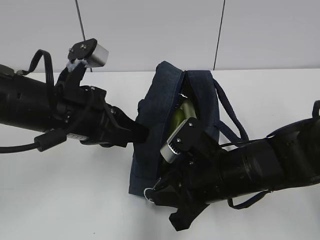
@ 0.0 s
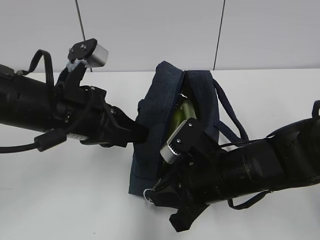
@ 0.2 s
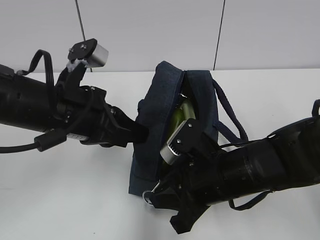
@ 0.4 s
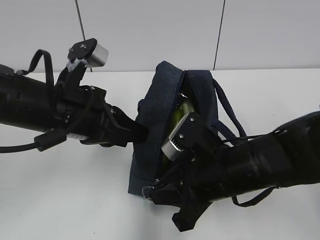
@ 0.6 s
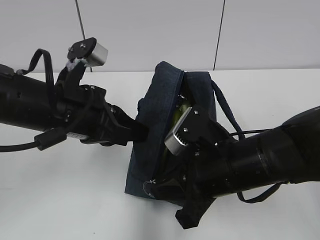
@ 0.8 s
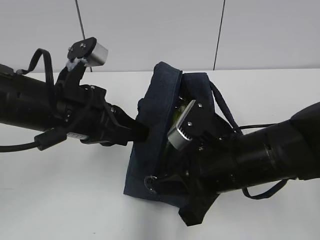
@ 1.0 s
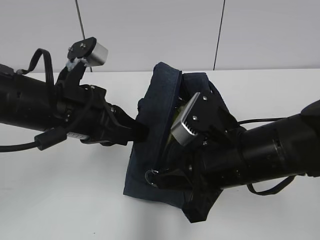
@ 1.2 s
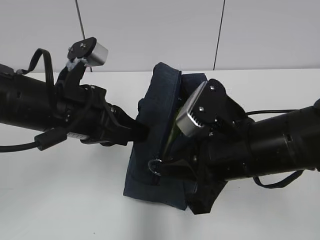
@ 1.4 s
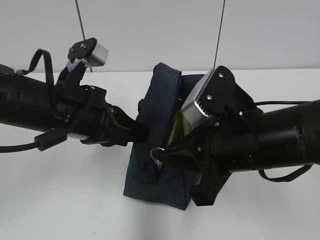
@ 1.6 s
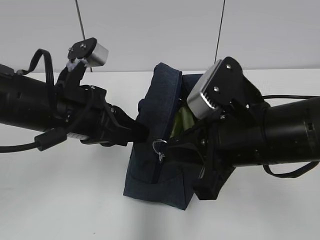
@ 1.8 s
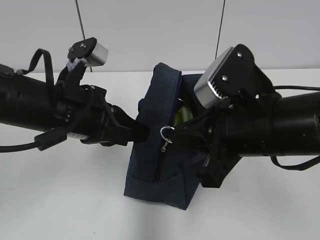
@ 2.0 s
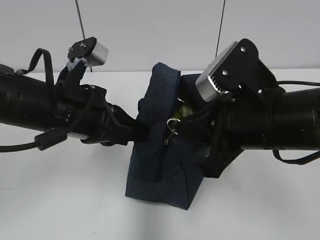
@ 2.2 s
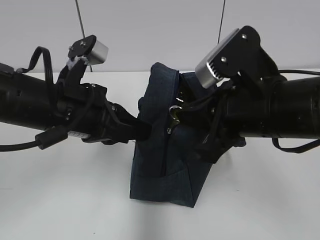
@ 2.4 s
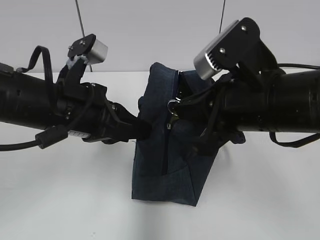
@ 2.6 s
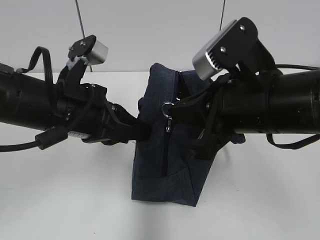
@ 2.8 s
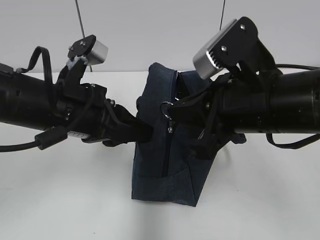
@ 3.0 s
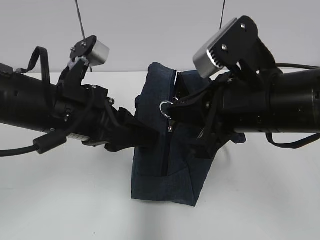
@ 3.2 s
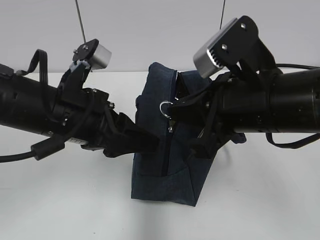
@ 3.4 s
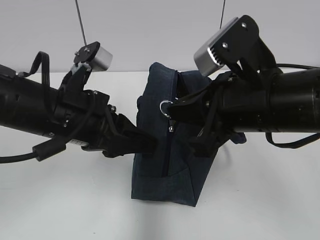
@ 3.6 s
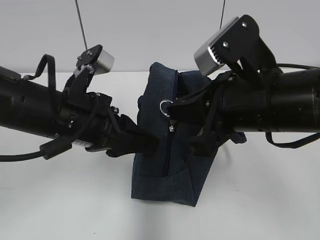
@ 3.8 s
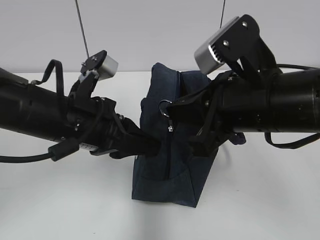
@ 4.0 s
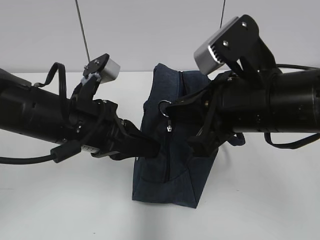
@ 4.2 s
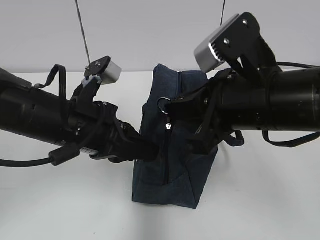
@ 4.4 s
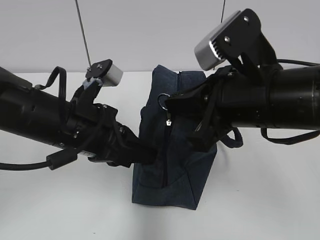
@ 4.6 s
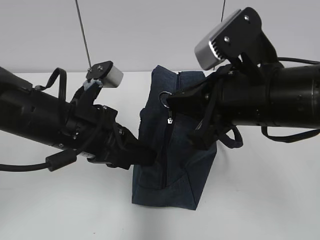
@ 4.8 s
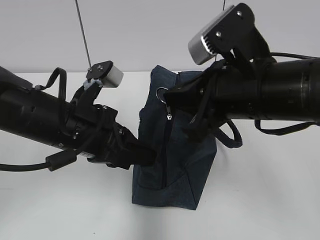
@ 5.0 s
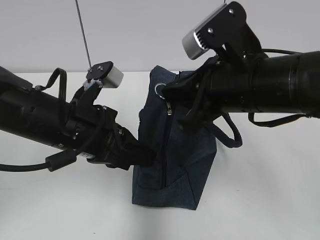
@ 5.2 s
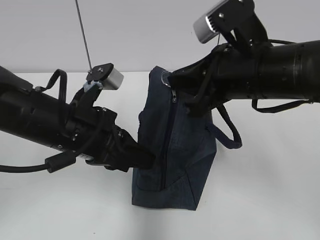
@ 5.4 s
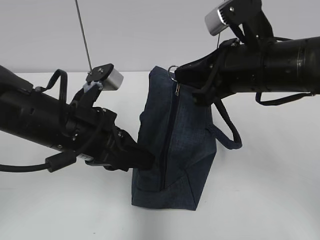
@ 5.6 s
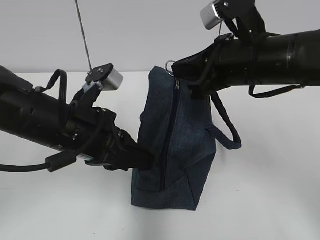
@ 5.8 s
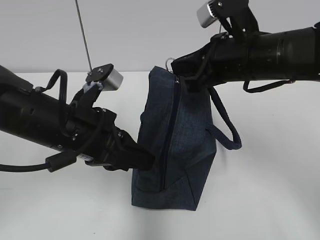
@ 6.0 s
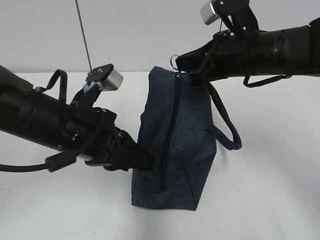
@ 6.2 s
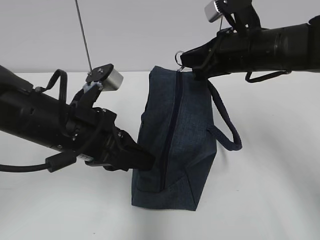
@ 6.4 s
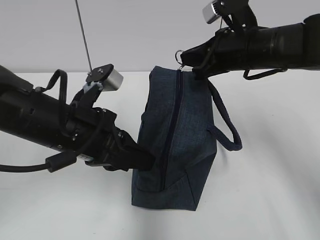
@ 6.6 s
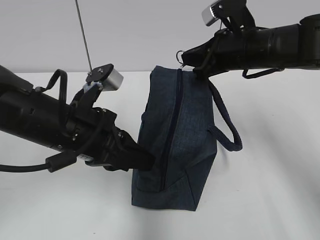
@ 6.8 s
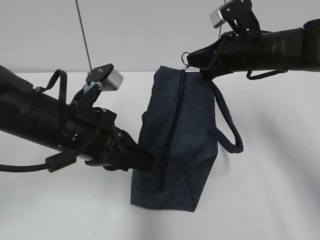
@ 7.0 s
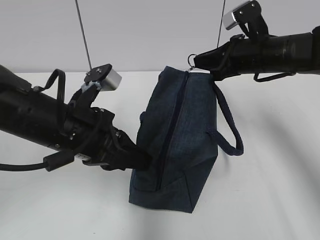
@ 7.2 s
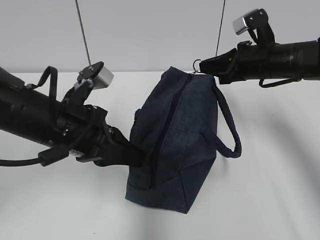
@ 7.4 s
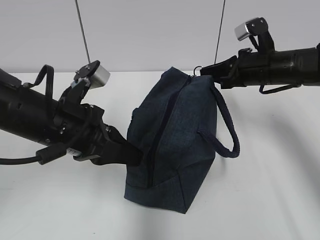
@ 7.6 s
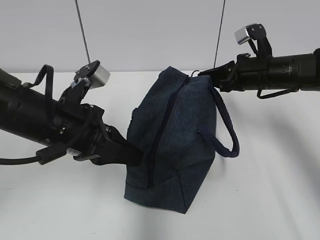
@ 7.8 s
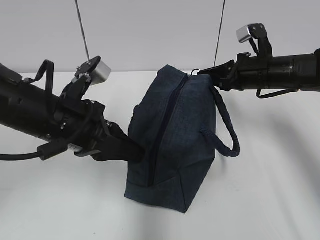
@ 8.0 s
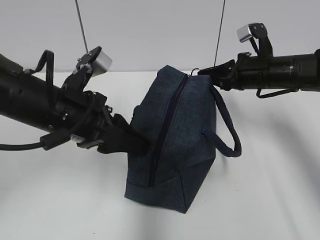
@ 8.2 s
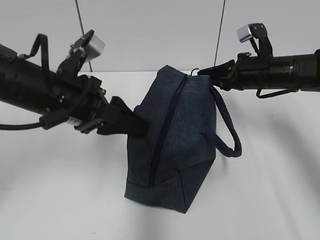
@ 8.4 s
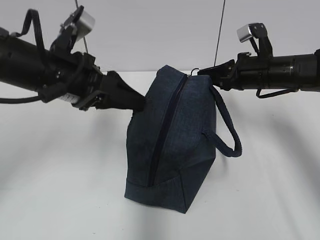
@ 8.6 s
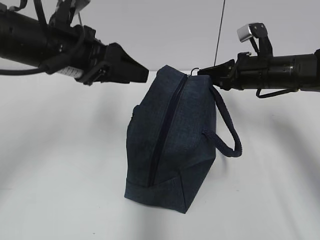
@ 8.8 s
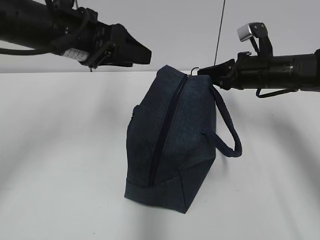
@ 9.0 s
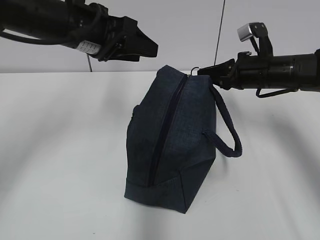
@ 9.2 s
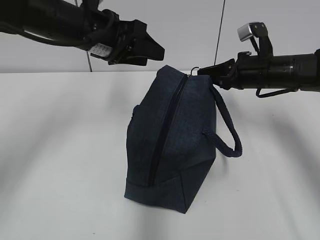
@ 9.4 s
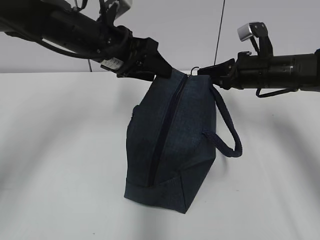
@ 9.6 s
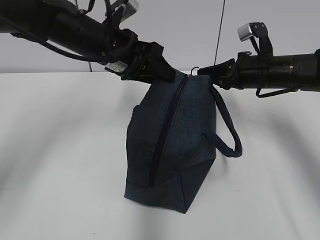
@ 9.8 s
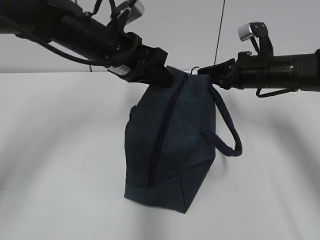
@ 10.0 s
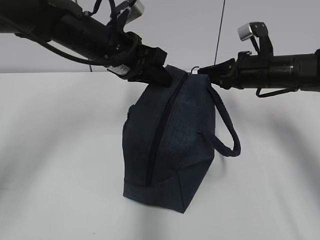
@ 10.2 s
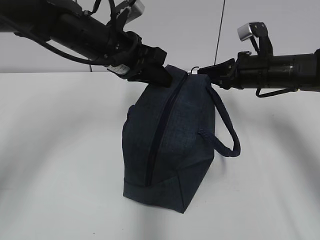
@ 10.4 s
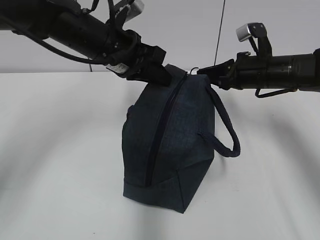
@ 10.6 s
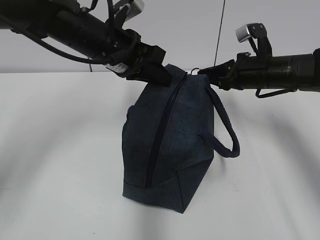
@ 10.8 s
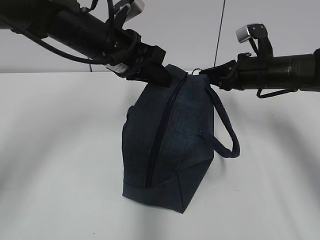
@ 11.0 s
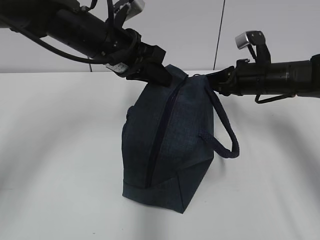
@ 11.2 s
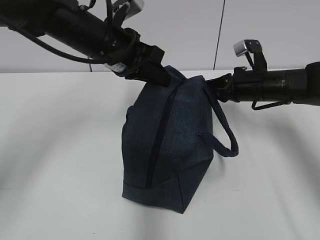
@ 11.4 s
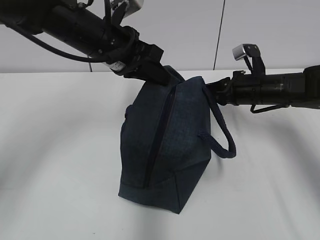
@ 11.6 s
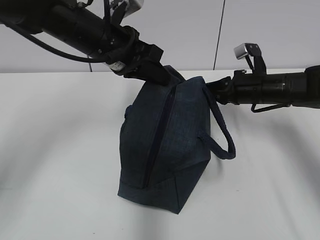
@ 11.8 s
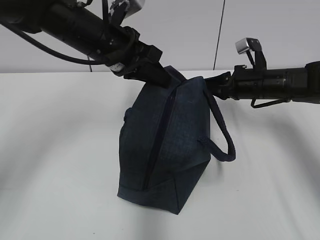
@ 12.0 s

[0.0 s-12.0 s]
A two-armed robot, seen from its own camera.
0.0 to 1.6 s: The right gripper travels upward by approximately 10 cm.
3.0 to 4.4 s: The grippers move only a little.
4.4 to 6.0 s: The right gripper shifts roughly 10 cm forward.
6.0 to 7.6 s: The right gripper moves forward, to the right and downward, about 15 cm.
7.6 to 9.0 s: The left gripper travels upward and forward by roughly 10 cm, and opens up.
9.0 to 10.4 s: The left gripper travels forward and to the right by roughly 5 cm, and closes up.
10.4 to 12.0 s: There are only small adjustments of the grippers.

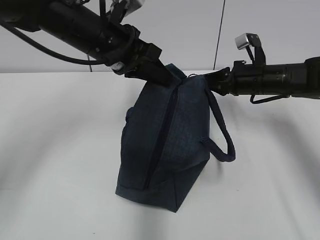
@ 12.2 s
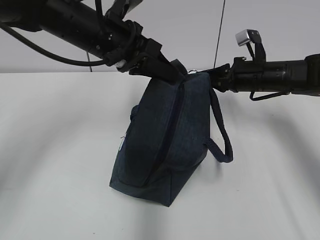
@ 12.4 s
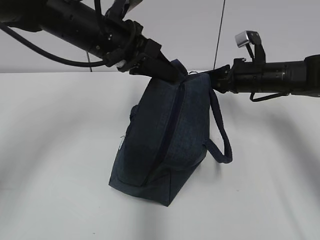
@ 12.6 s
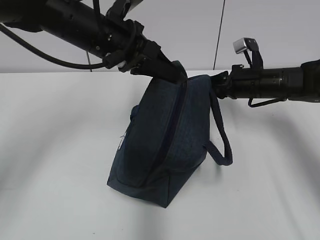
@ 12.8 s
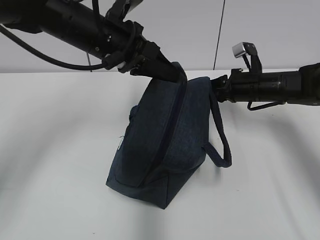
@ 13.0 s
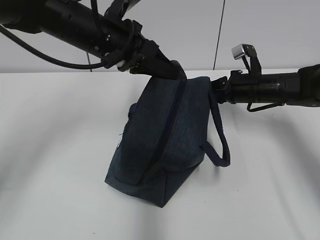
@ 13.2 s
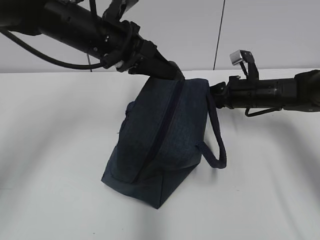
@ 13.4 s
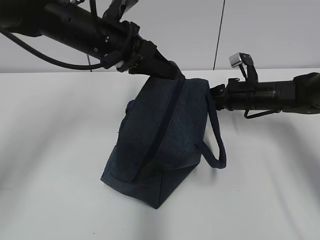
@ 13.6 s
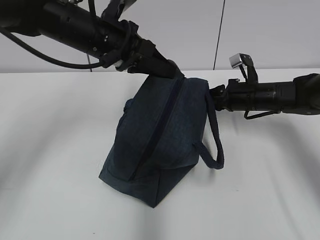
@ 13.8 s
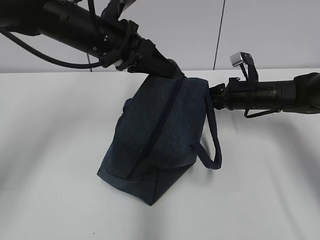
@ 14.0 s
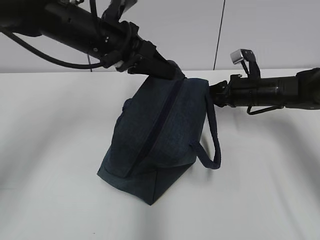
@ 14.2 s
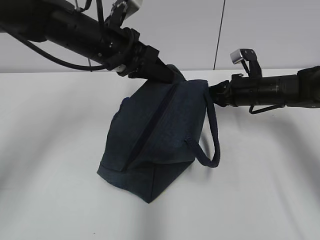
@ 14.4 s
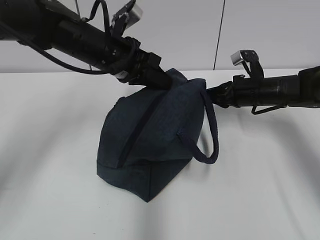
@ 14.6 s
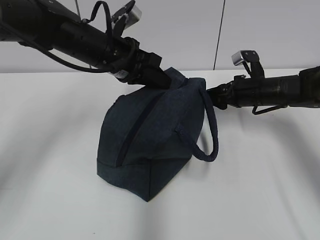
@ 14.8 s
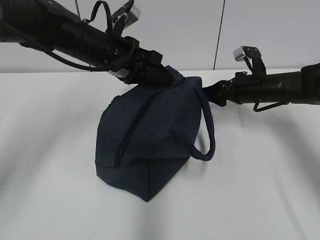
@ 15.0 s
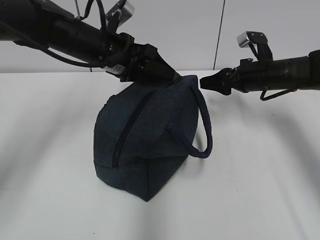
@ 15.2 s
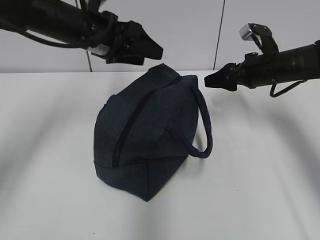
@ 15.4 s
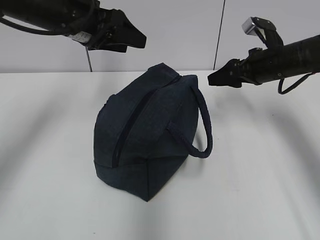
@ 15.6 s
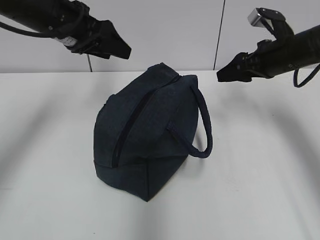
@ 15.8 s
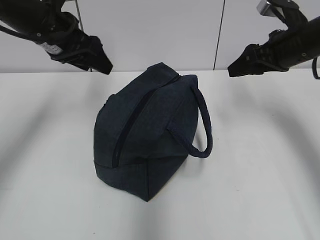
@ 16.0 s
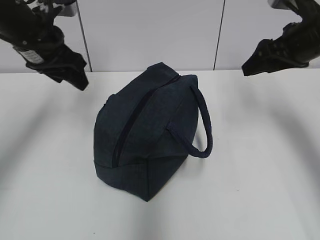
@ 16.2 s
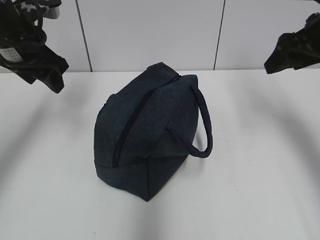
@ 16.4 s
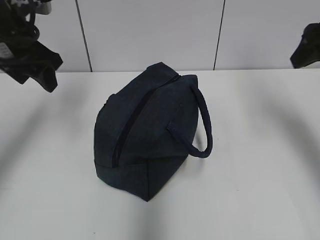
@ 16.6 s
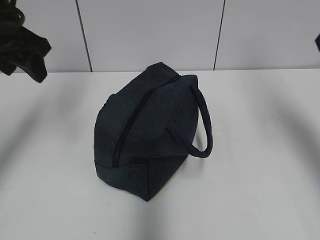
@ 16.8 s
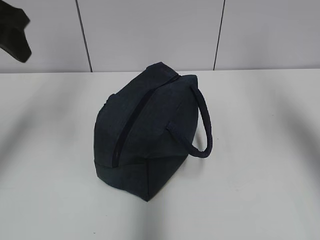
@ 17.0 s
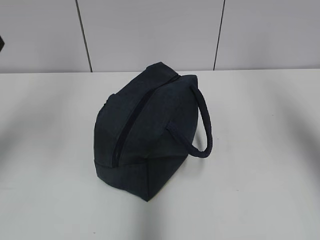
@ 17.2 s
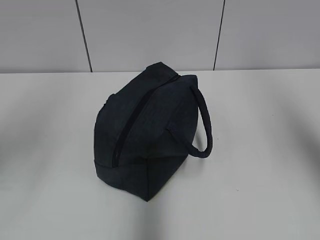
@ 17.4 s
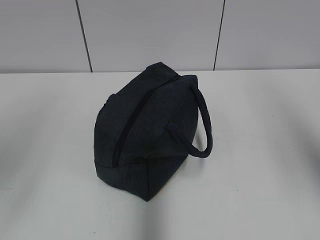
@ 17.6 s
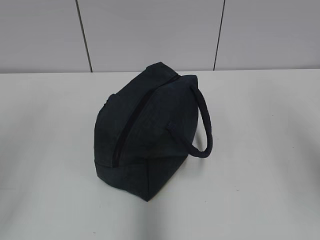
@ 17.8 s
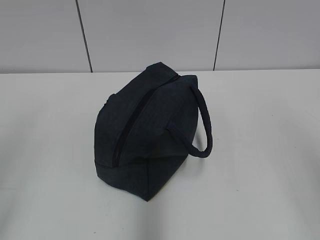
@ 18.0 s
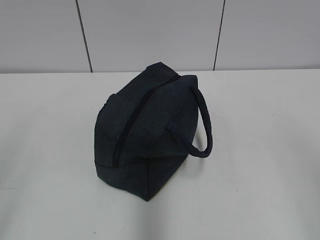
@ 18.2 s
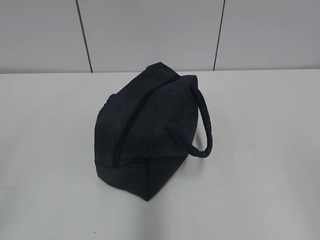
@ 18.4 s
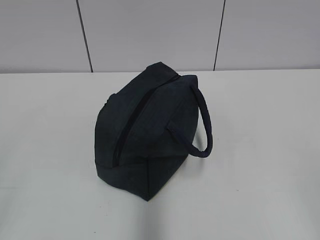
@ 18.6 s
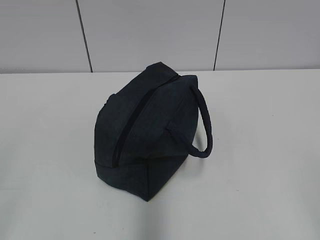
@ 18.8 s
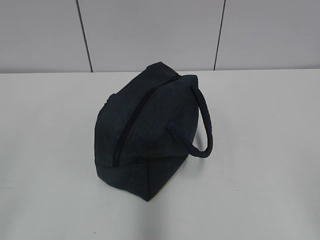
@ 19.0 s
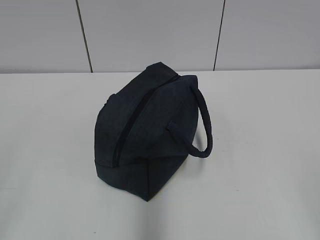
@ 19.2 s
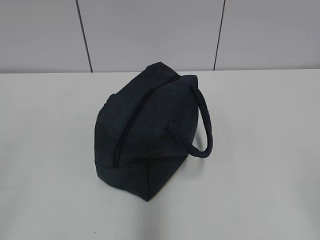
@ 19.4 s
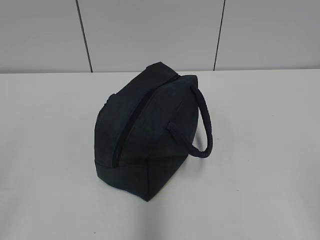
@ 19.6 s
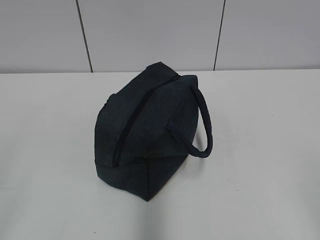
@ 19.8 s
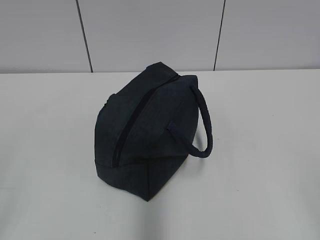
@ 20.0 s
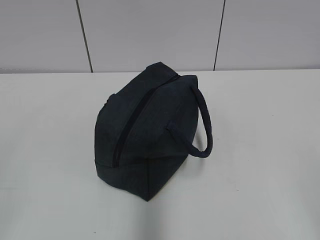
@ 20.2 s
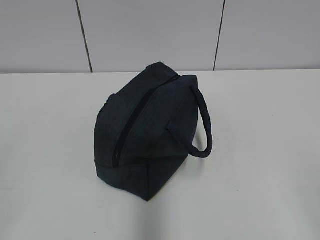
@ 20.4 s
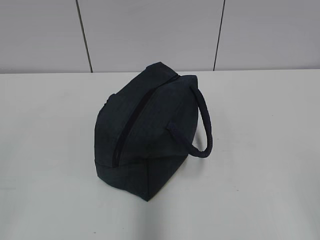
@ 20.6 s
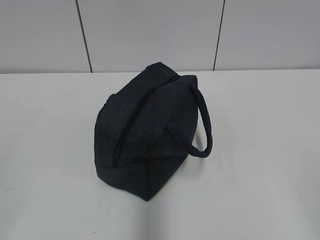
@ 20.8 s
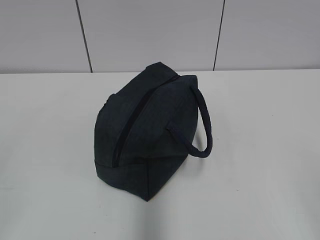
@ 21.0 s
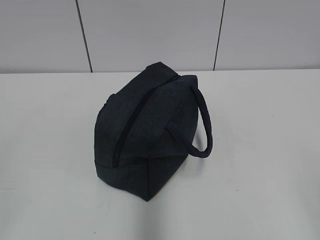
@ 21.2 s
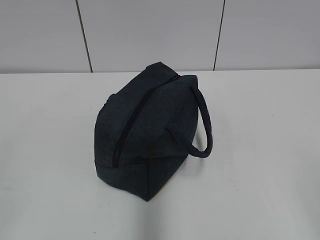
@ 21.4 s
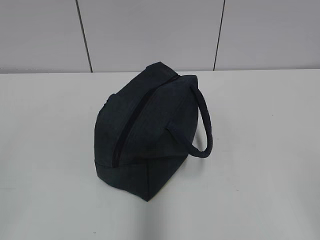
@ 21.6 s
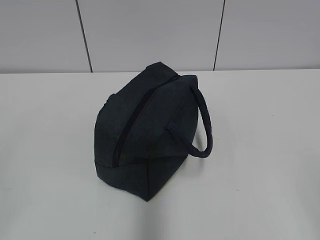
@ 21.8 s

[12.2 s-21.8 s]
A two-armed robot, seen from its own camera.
Step, 12.2 to 14.2 s: Pull the zipper with your right hand.
Step, 14.6 to 15.0 s: Grab the lunch bag with your left hand.
12.2 to 13.8 s: The grippers stay close to where they were, moving slightly.
13.8 to 15.4 s: The left gripper opens its fingers. Meanwhile the right gripper is displaced upward by roughly 5 cm, and opens its fingers.
15.4 to 17.0 s: The left gripper heads to the left, upward and backward, covering some 20 cm; the right gripper travels upward and backward by about 30 cm.
17.0 to 18.6 s: The left gripper moves backward, about 30 cm, while the right gripper heads backward and downward, covering approximately 30 cm.
20.2 to 21.8 s: Both grippers stay put.
